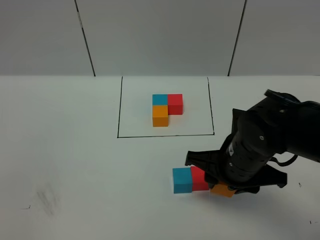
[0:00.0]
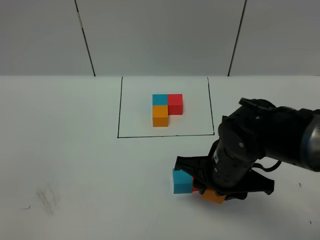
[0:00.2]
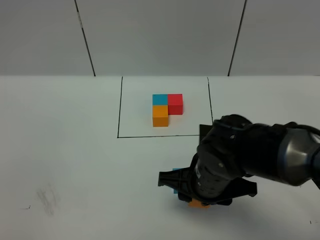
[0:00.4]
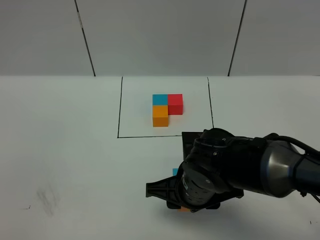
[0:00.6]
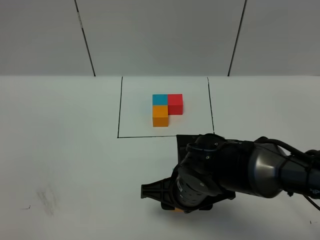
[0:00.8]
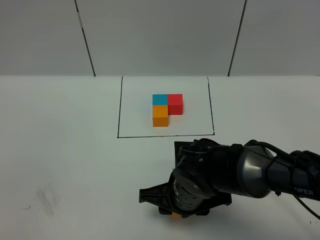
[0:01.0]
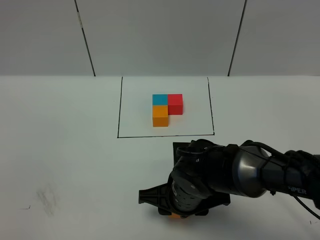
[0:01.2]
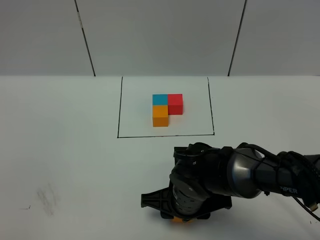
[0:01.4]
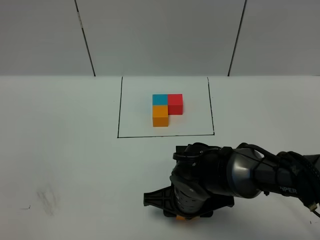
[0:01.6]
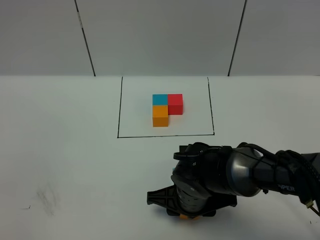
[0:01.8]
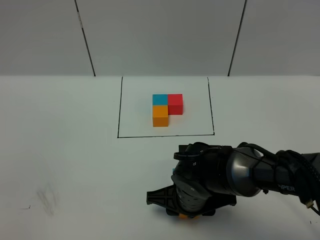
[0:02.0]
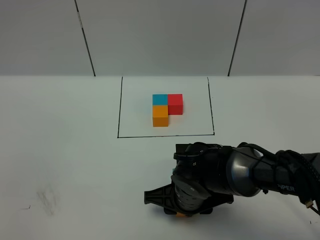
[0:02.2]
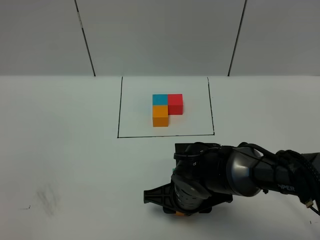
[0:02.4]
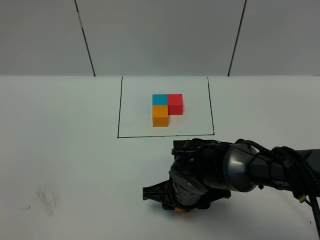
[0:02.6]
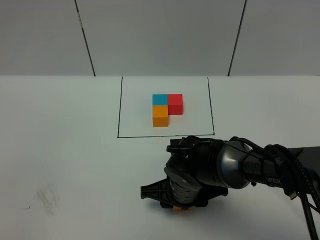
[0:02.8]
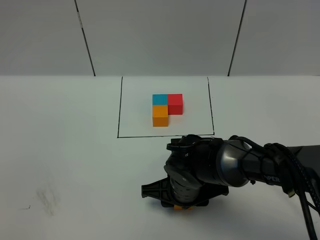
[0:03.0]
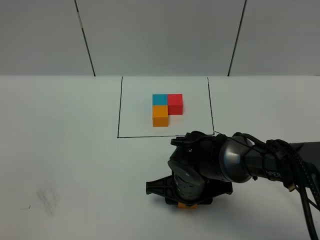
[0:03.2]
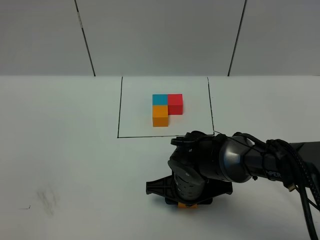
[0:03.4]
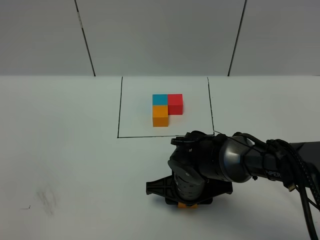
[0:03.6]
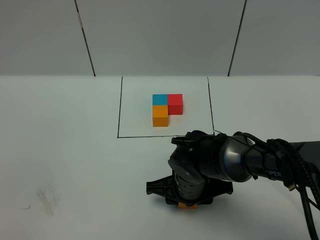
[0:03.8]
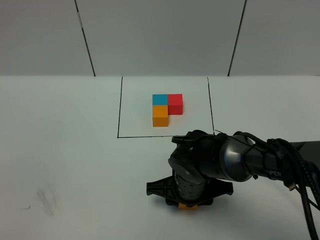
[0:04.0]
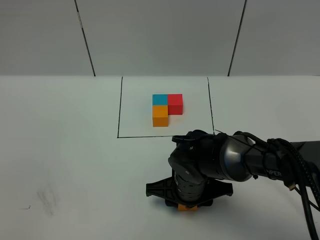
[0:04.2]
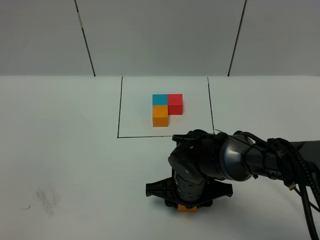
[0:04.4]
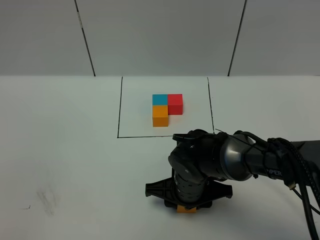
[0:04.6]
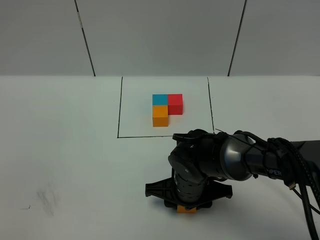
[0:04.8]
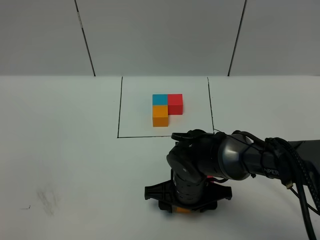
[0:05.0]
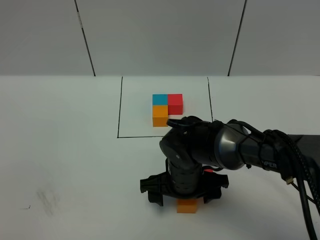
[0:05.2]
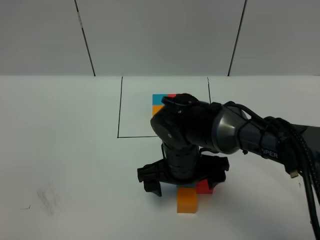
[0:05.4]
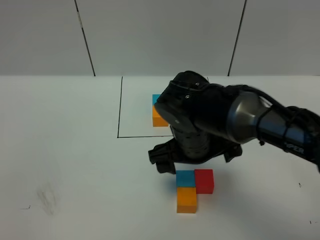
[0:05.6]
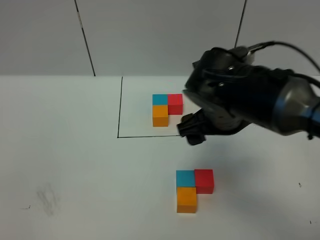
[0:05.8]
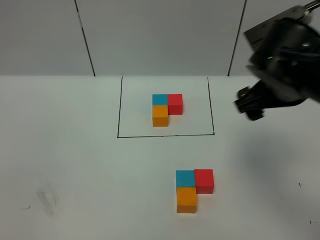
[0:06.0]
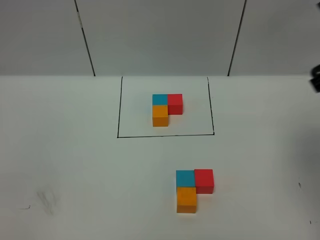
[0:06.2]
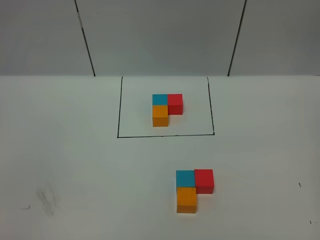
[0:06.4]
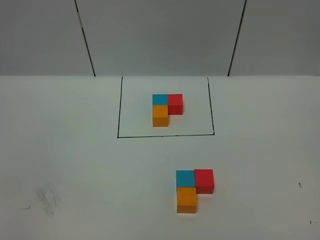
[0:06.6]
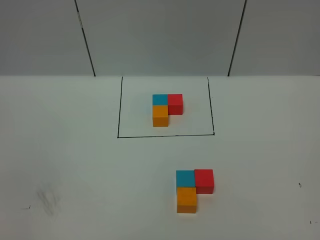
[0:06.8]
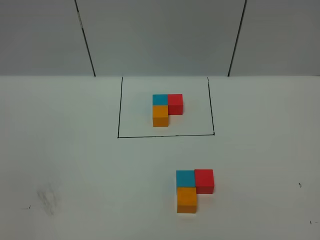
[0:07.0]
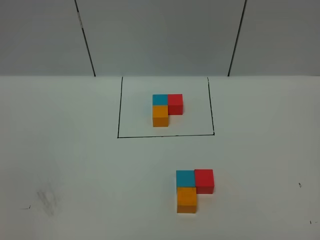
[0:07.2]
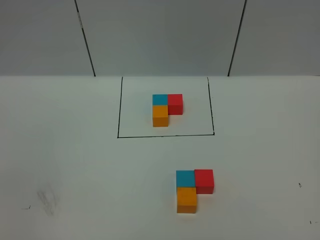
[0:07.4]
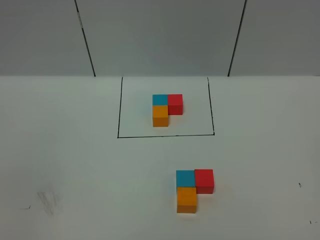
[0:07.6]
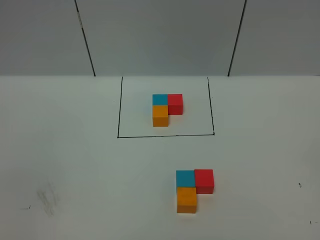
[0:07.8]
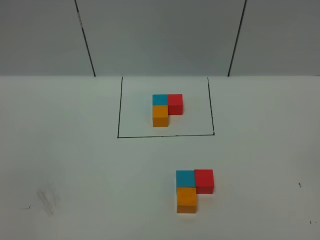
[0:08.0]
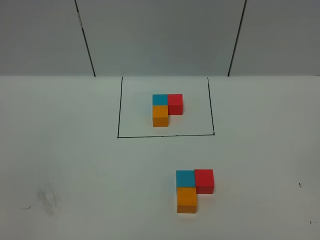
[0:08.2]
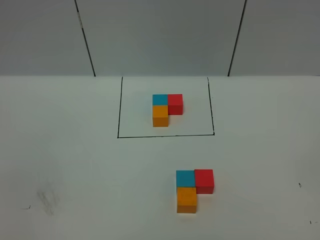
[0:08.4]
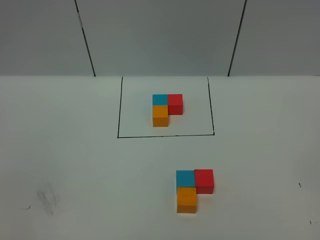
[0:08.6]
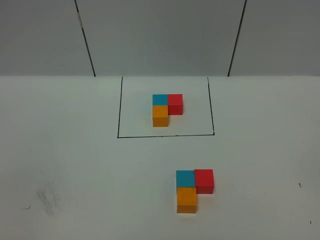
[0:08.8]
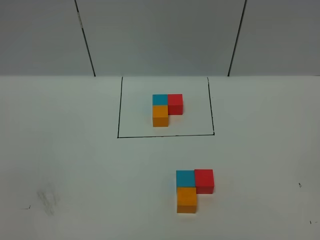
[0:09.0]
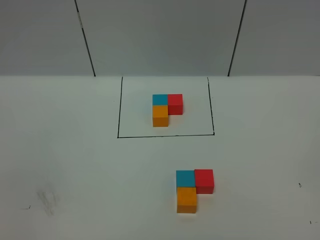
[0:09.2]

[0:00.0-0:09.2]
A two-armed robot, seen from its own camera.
Task of the whole recording: According to the building block template in front, assemble the scattered blocks together.
Step, 0.0 to 5.4 s: Put the orange cube in the front of the blue cube.
0.0 to 1.6 s: The right gripper heads downward and to the left, covering approximately 10 cm.
1.6 to 4.6 s: The grippers make only small movements.
4.6 to 6.2 s: The right gripper goes roughly 35 cm upward and to the right, and opens.
6.2 to 7.6 s: The right gripper moves backward, roughly 35 cm.

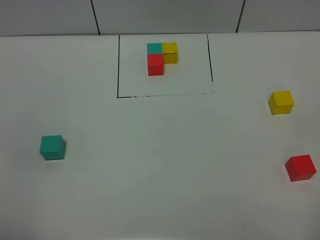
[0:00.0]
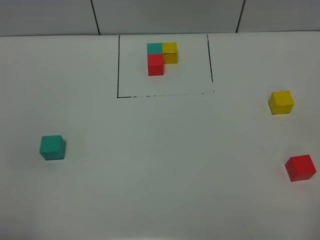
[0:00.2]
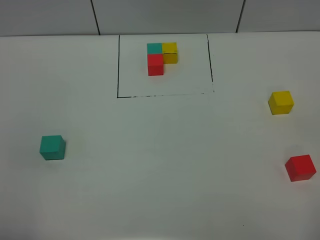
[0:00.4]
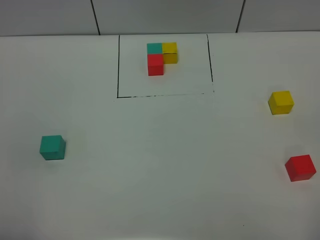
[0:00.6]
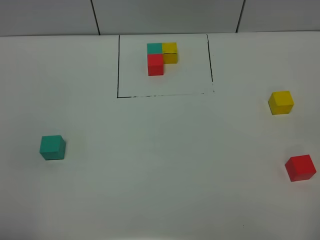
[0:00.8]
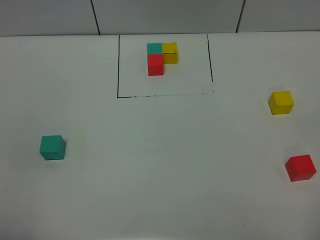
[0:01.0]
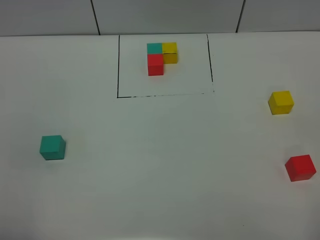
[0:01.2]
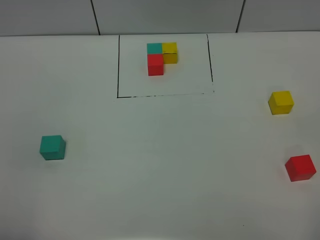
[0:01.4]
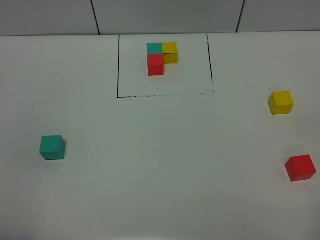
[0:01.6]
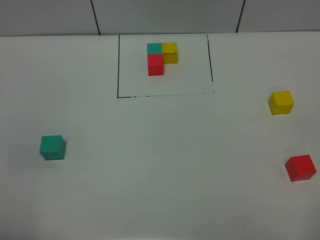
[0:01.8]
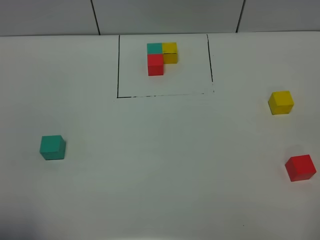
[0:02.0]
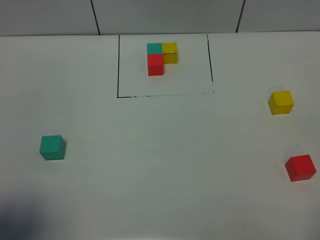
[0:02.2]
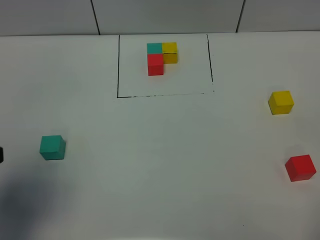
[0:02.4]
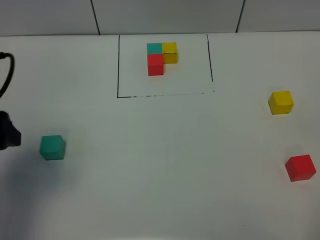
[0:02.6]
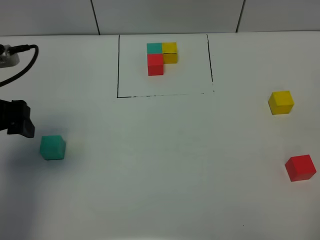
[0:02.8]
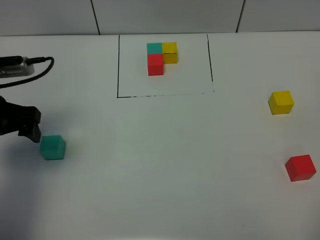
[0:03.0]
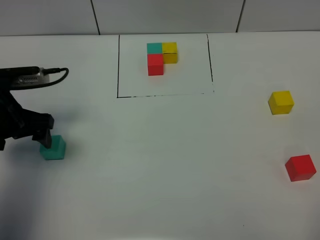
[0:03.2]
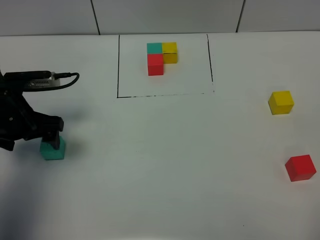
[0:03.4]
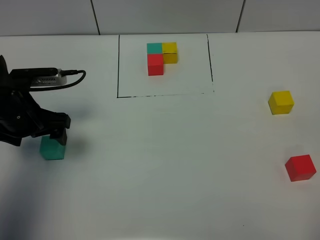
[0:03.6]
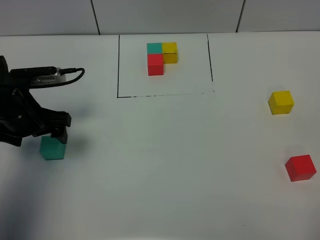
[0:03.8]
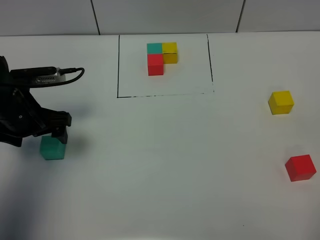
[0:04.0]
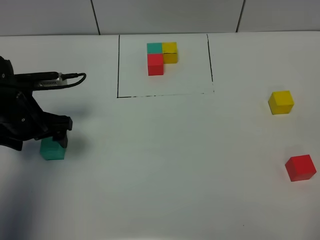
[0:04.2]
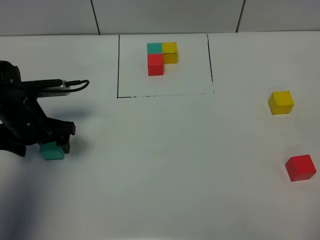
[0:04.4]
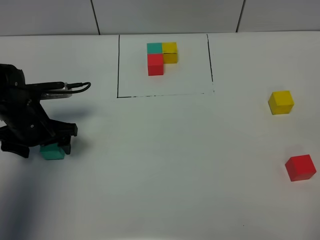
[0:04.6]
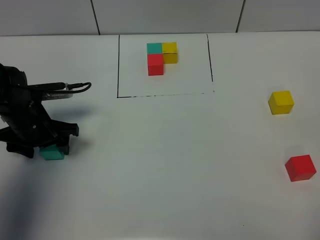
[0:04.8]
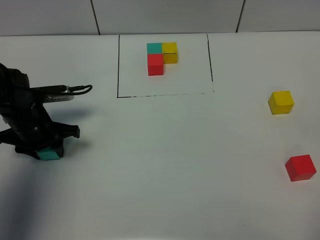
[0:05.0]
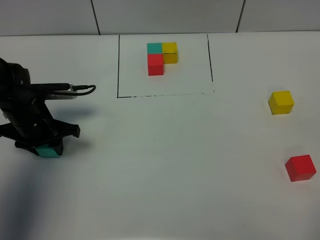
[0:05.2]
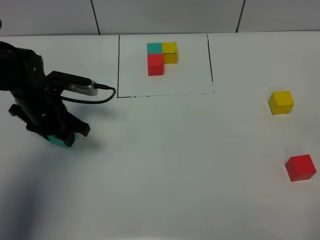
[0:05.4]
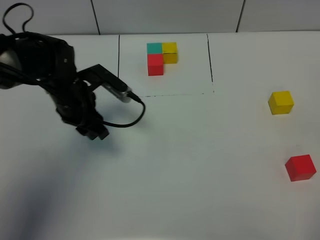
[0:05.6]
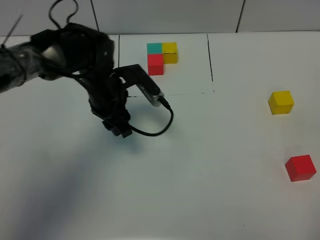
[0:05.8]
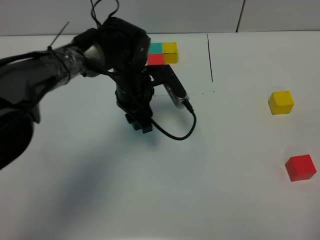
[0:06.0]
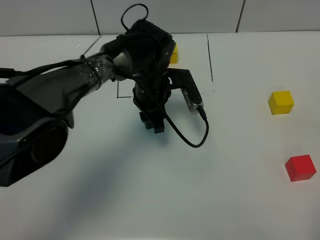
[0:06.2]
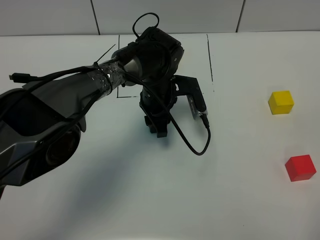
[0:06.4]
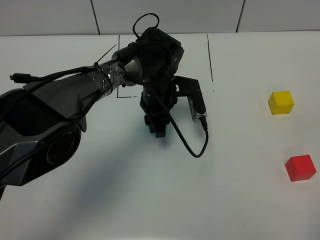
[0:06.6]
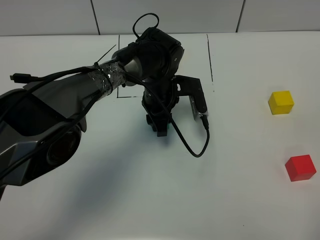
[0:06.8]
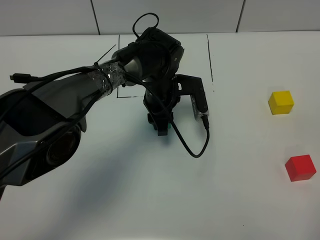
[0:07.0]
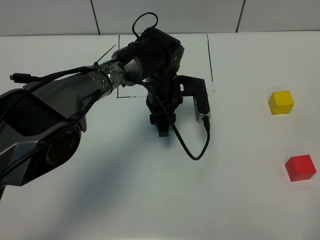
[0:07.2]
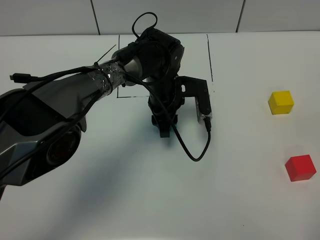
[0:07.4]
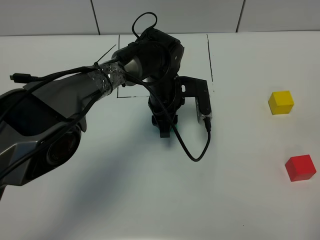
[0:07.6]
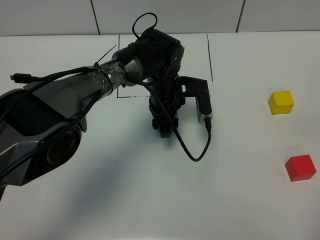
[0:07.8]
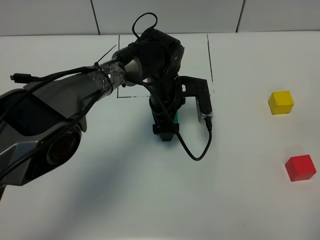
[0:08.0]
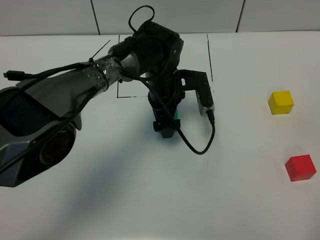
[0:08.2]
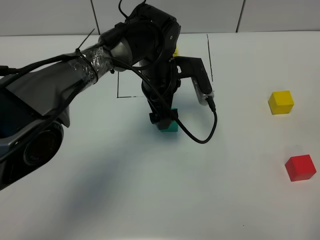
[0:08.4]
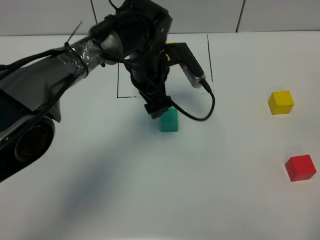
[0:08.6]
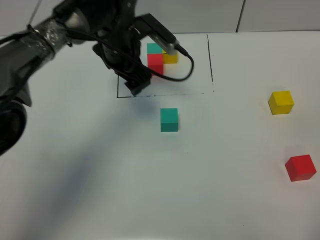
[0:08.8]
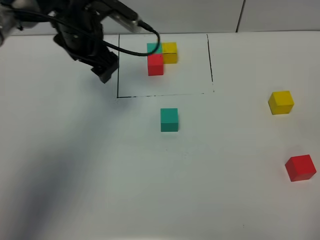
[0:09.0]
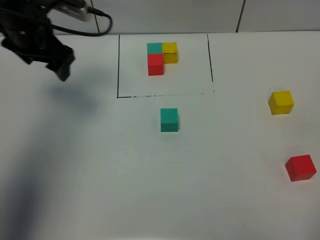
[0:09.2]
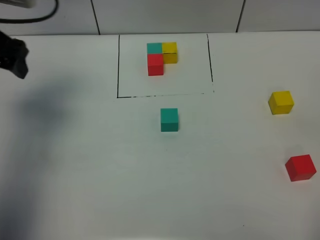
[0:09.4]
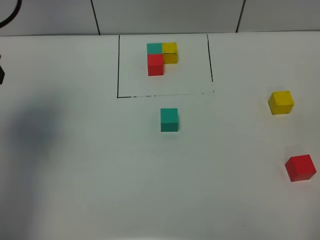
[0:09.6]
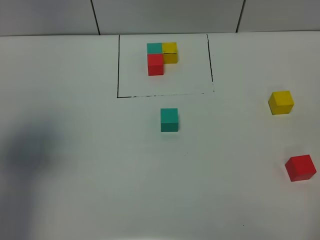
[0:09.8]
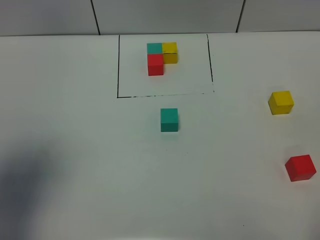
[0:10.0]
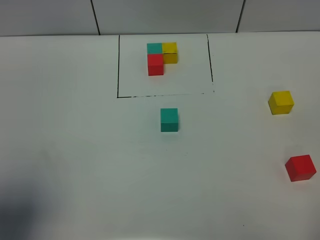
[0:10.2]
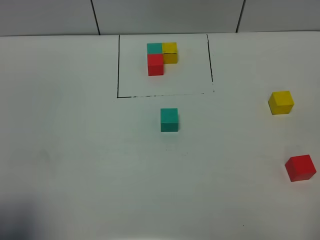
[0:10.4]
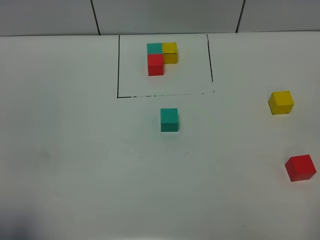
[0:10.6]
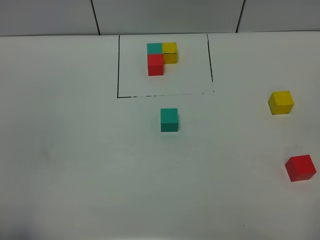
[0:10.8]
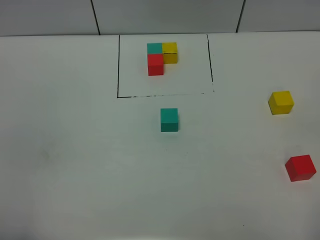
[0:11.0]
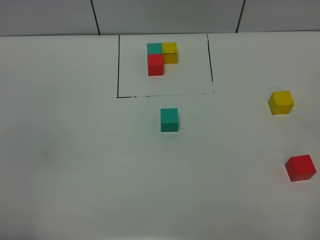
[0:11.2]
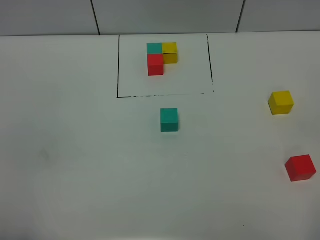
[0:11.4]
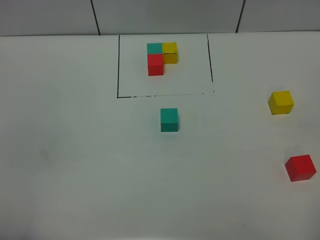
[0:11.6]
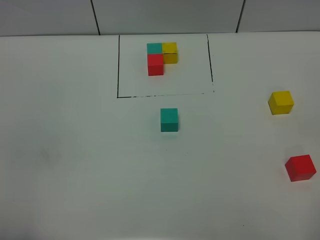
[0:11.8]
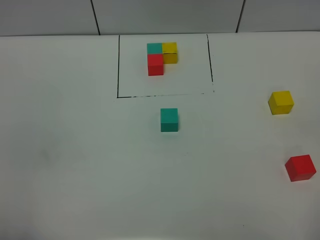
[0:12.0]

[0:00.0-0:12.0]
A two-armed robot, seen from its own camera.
Task of the whole recording: According to the building block template in front, assemble the scattered blocks together.
Step, 0.0 to 7.8 s: Put the green build block in the center of the table.
0.0 to 1.6 s: The two grippers keep their place.
1.6 to 3.0 s: The left gripper travels forward by roughly 30 cm.
3.0 to 4.4 s: The left gripper travels downward by about 10 cm.
4.4 to 6.0 s: The left gripper goes some 20 cm to the right, and closes its fingers.
6.0 to 7.6 s: The left gripper is displaced to the right by some 5 cm.
7.6 to 9.0 s: The left gripper shifts roughly 20 cm to the left and upward, and opens up.
9.0 to 10.4 s: The left gripper moves backward, roughly 40 cm.
10.4 to 12.0 s: The left gripper is displaced downward by roughly 5 cm.

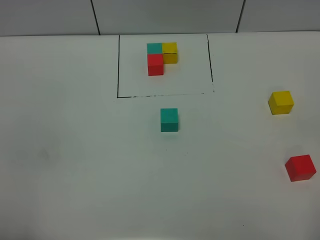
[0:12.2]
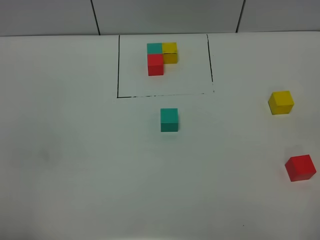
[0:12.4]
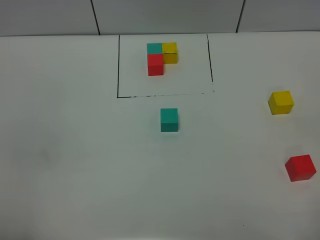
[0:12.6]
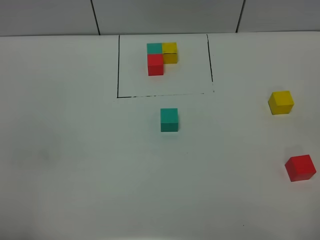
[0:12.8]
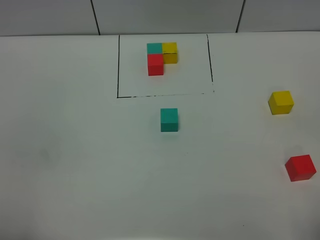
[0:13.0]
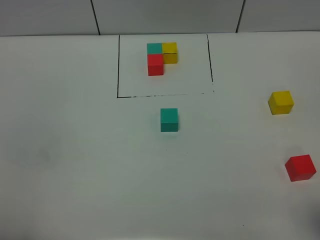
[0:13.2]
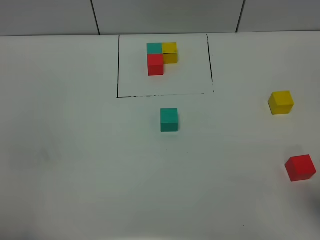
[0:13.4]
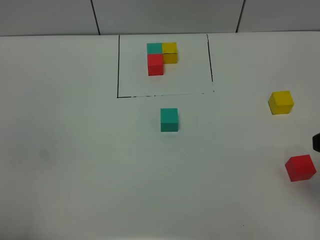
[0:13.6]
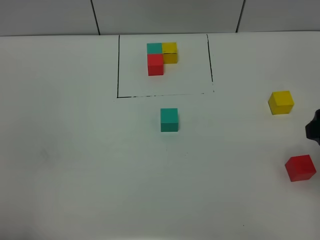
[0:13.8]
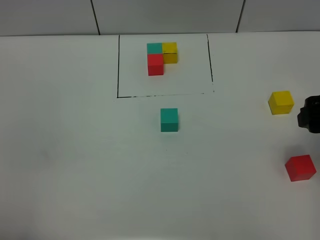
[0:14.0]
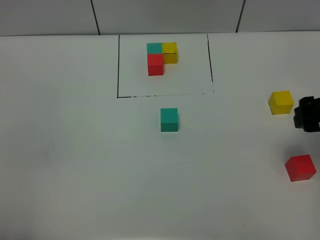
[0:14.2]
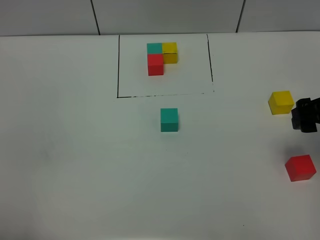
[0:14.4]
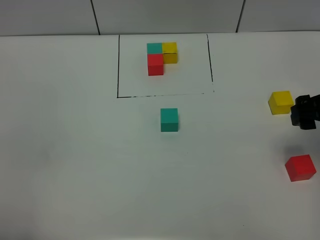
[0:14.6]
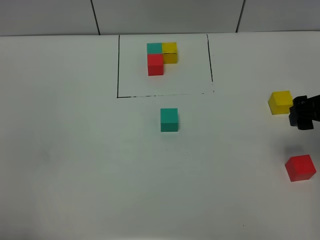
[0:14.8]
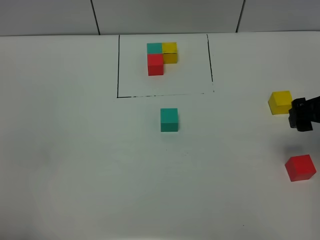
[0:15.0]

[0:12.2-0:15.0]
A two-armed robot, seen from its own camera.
Task of the whole recording: According to the building block template in front, assemble the scattered blocks together.
12.2 to 13.6 s: The right gripper is displaced forward by about 15 cm.
13.6 to 15.0 s: The right gripper is displaced forward and downward by roughly 10 cm.
